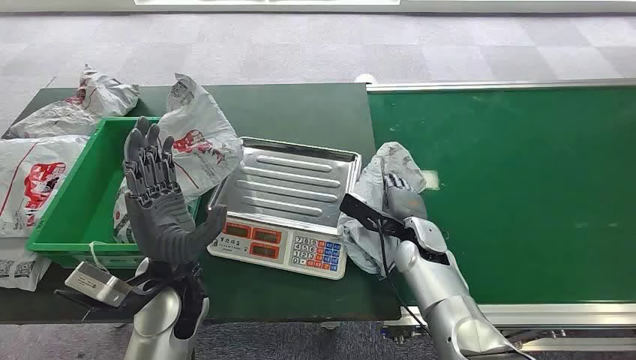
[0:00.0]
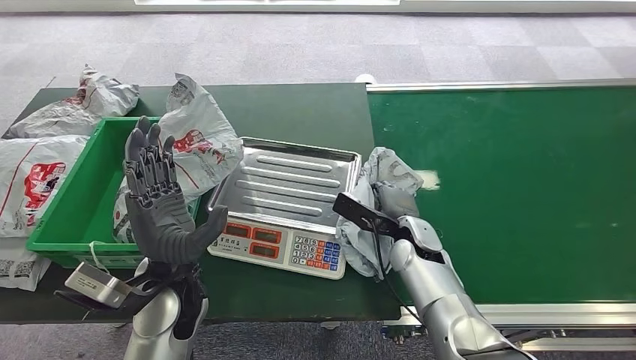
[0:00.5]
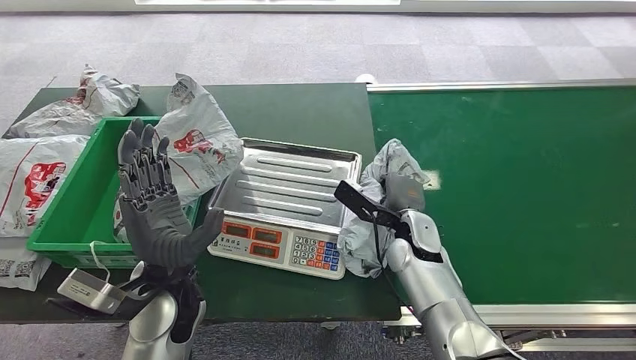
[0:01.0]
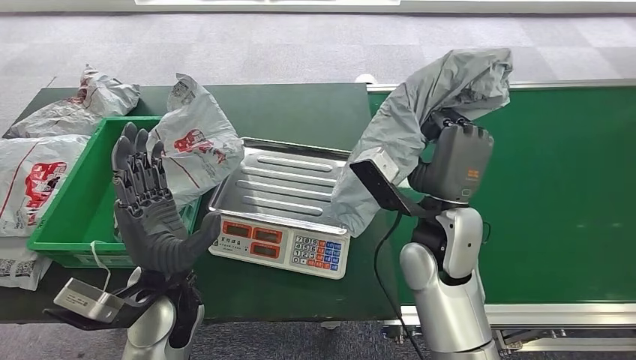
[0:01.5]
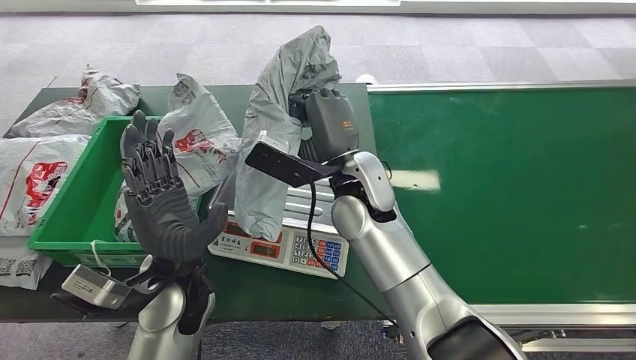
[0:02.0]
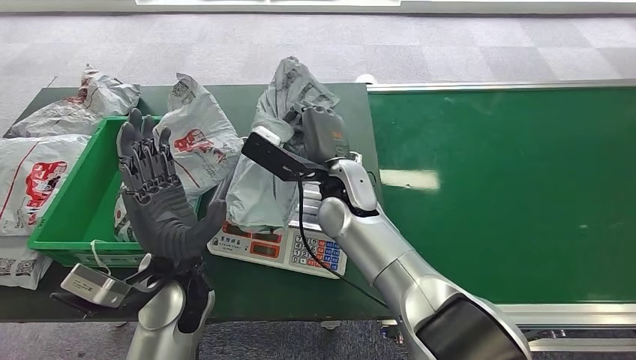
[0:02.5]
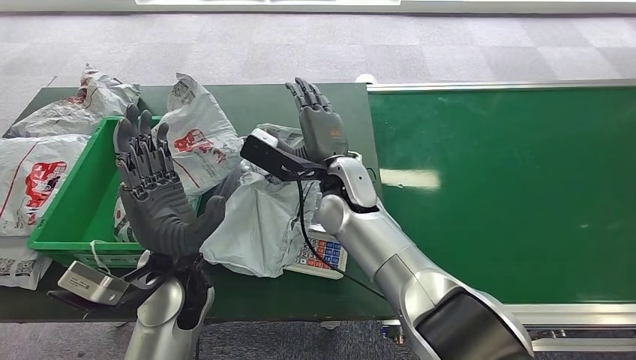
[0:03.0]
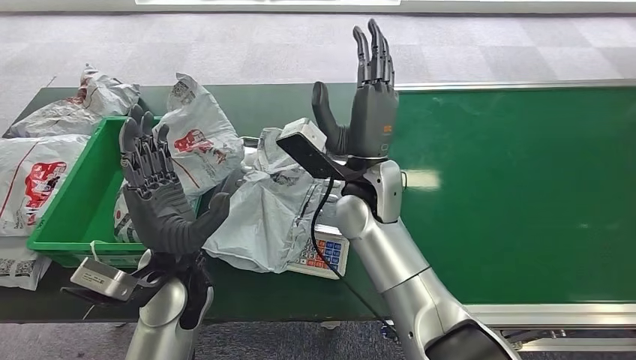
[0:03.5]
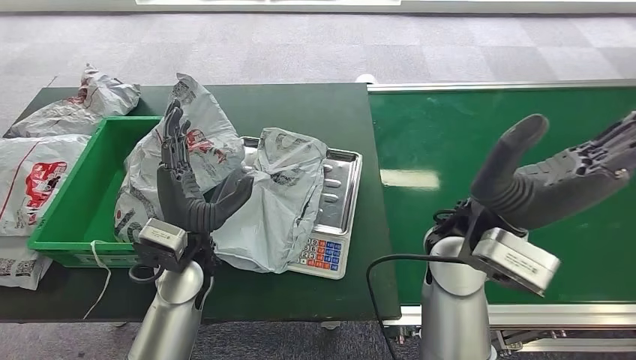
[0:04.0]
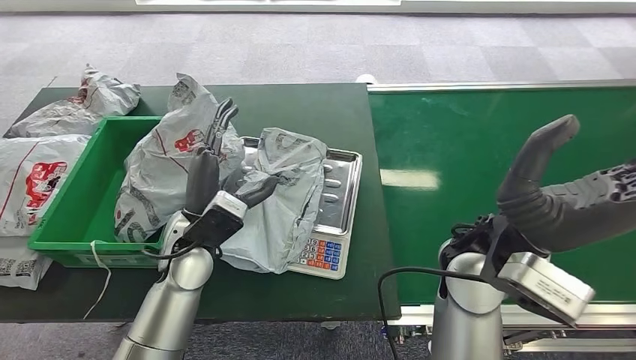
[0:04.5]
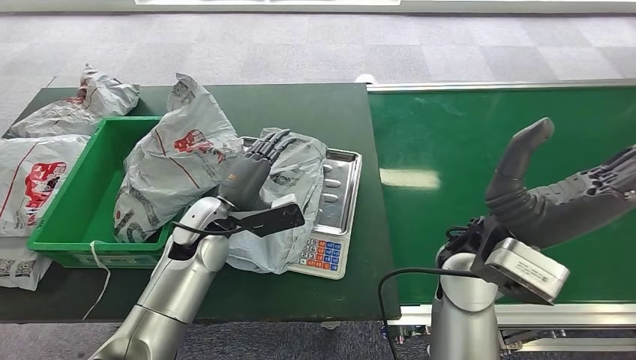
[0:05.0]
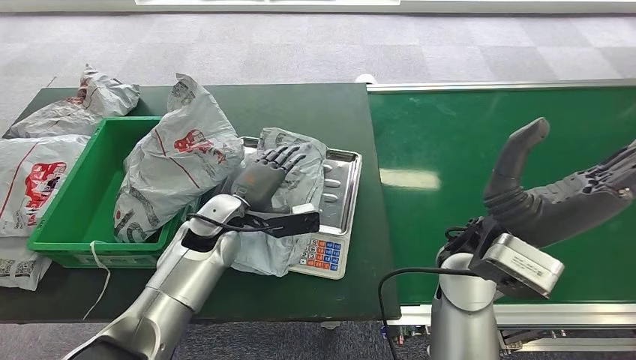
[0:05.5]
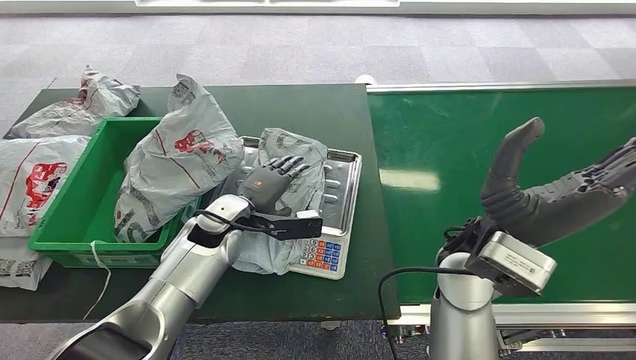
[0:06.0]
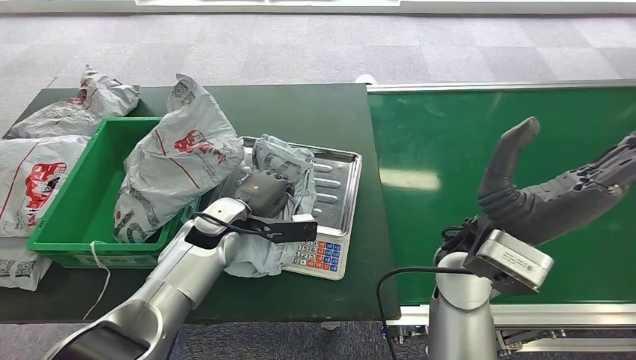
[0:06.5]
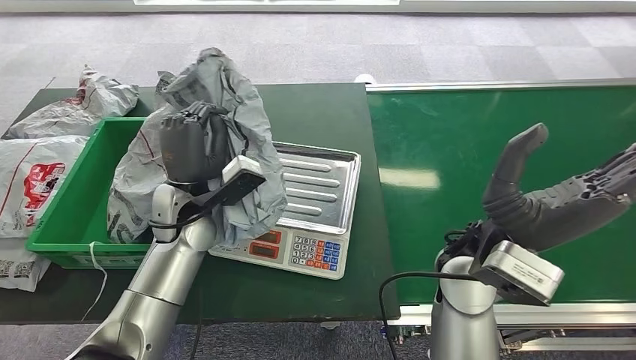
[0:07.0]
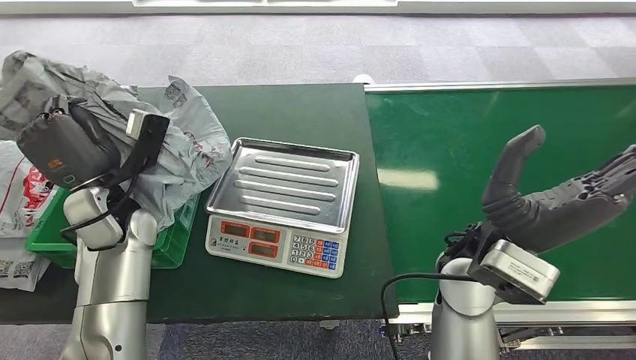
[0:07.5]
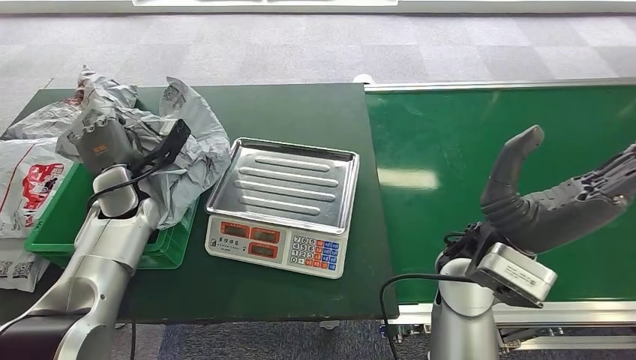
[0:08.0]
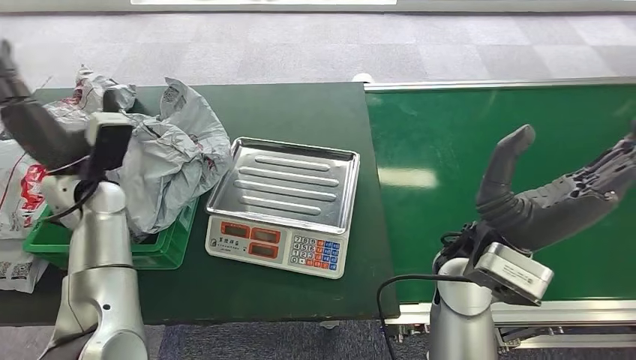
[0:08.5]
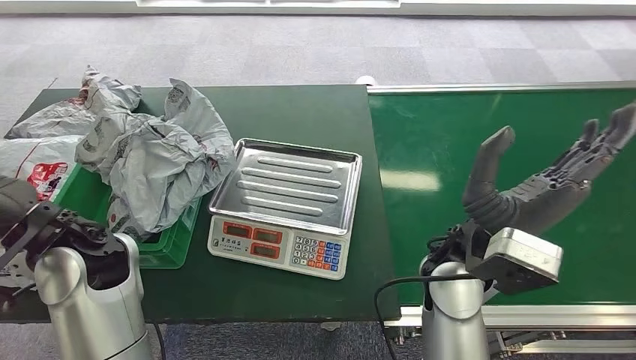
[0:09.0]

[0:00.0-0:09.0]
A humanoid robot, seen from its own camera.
Step, 0:00.0 to 0:01.0: Pick up the package from the conveyor belt.
Step, 0:01.5 to 0:04.0: Place the package onto the inbound machine.
Step, 0:04.5 to 0:07.0: Pick up the package from the inbound machine.
Step, 0:07.5 to 0:09.0: Place the package into the parcel locker.

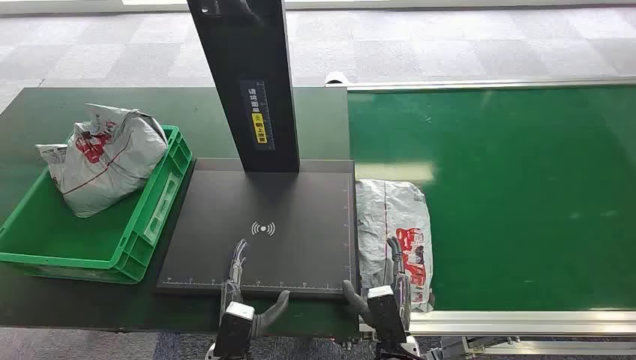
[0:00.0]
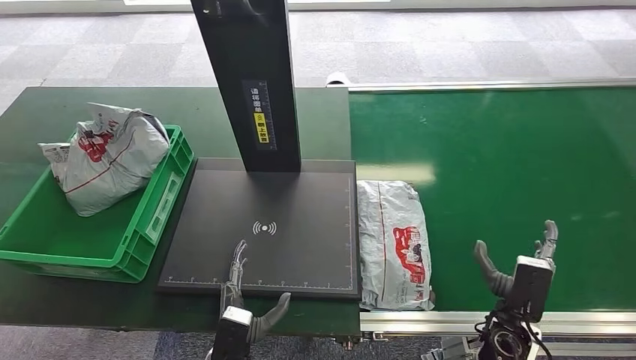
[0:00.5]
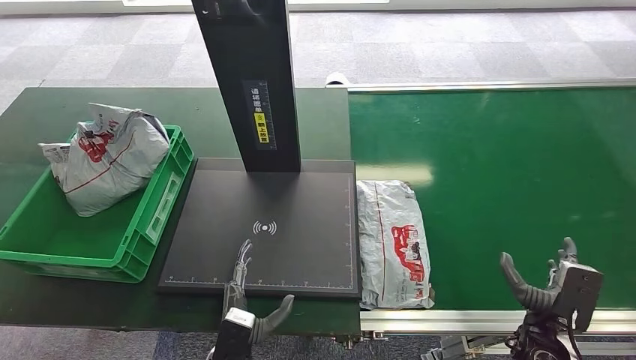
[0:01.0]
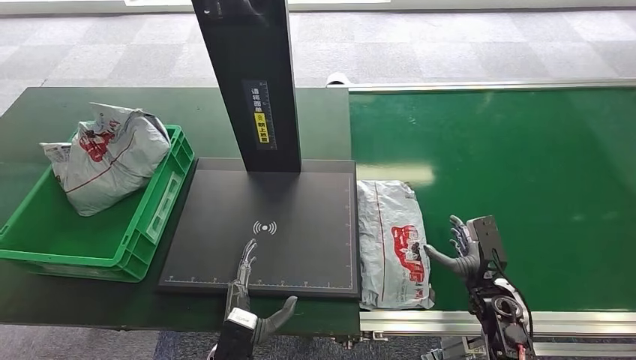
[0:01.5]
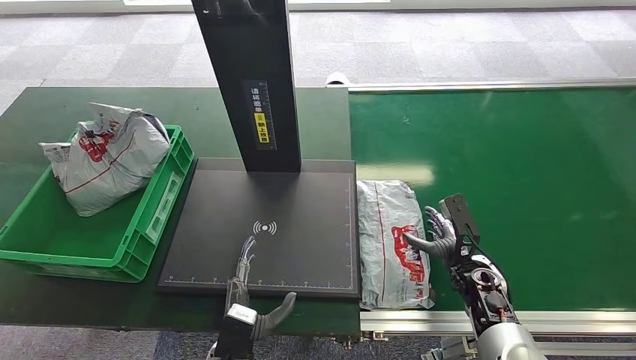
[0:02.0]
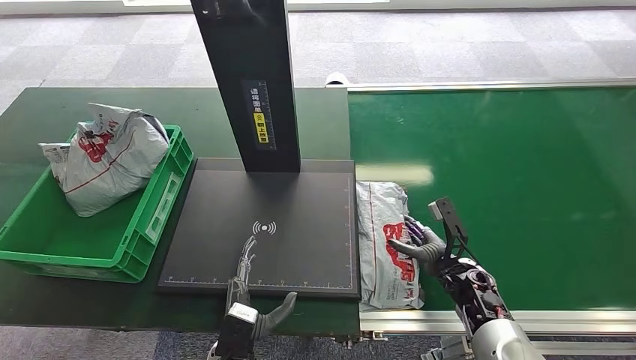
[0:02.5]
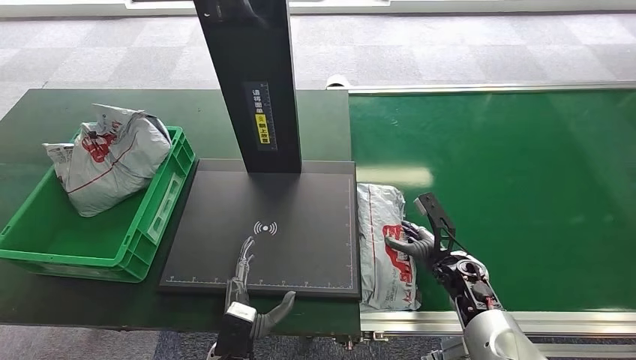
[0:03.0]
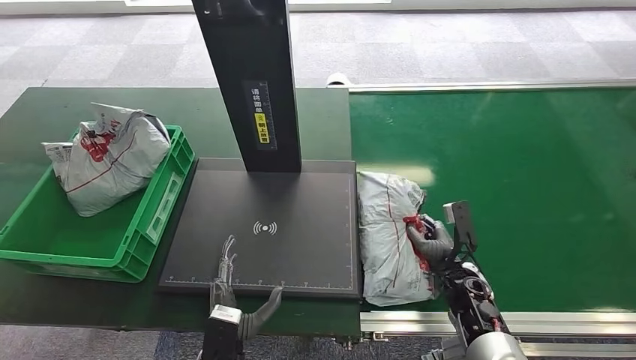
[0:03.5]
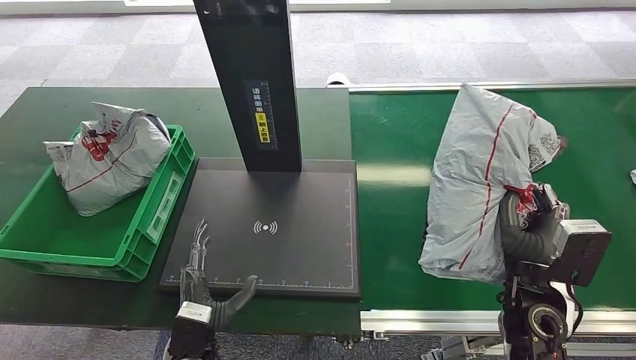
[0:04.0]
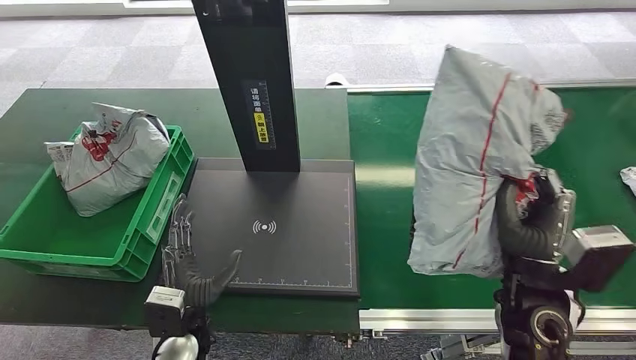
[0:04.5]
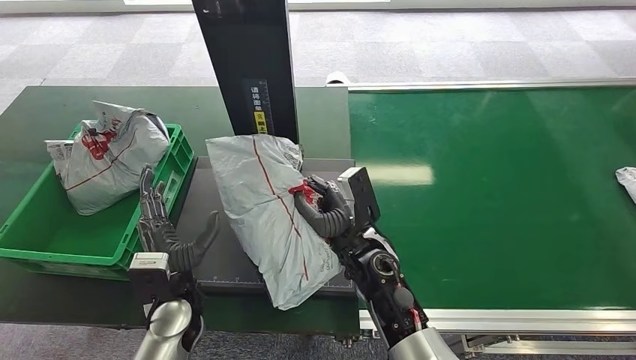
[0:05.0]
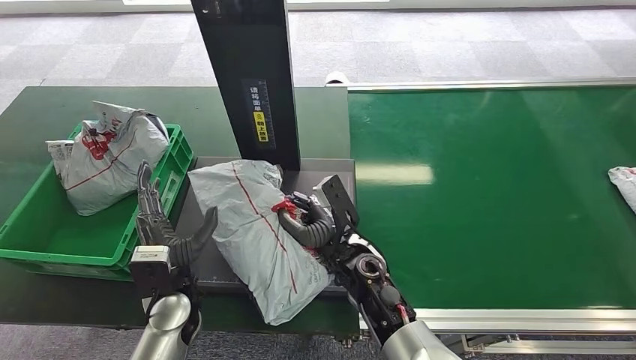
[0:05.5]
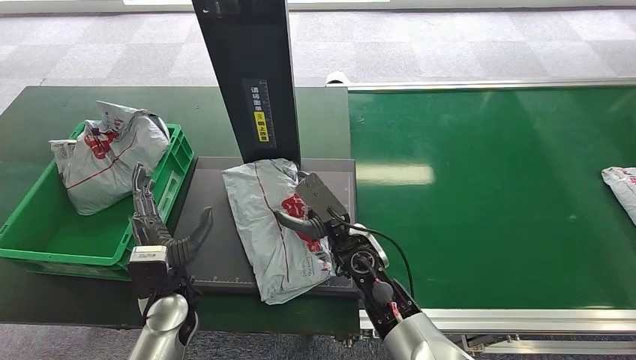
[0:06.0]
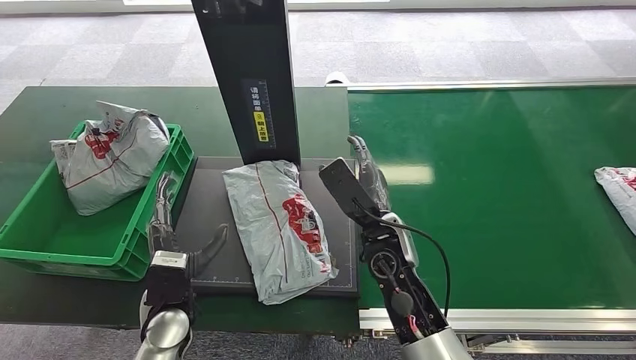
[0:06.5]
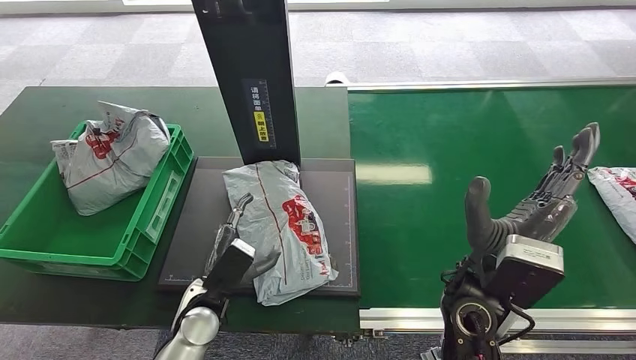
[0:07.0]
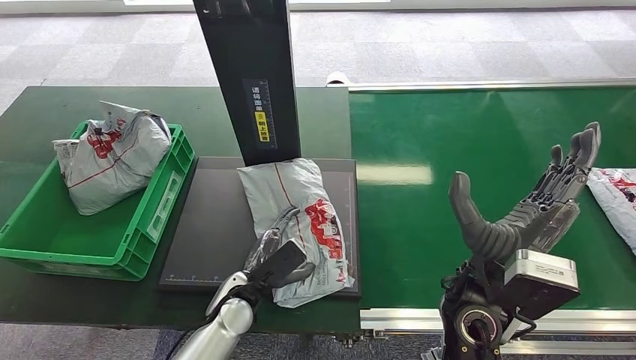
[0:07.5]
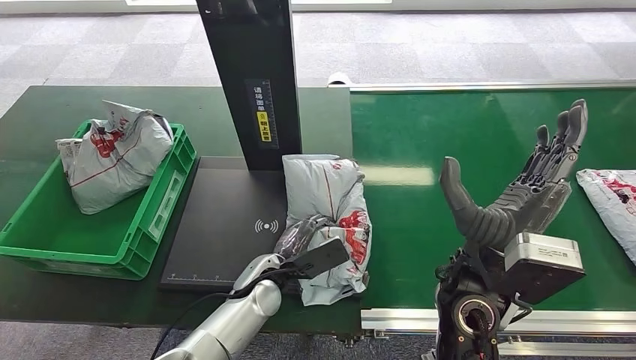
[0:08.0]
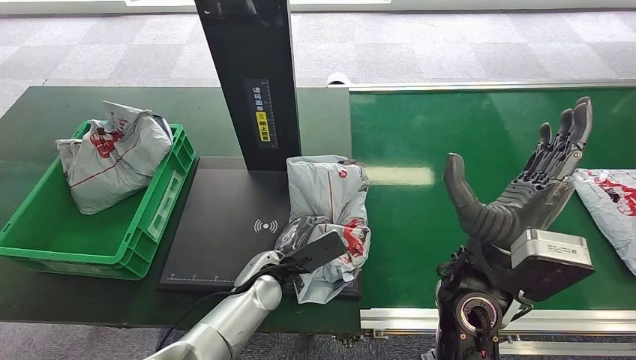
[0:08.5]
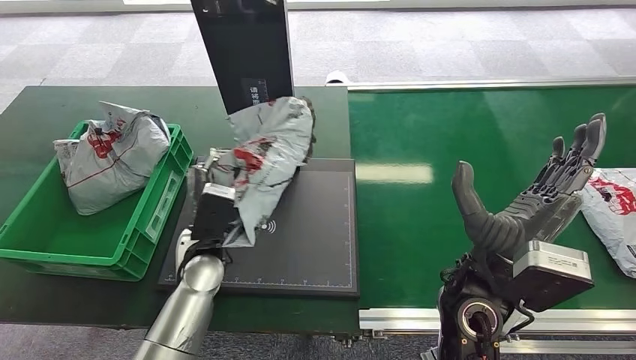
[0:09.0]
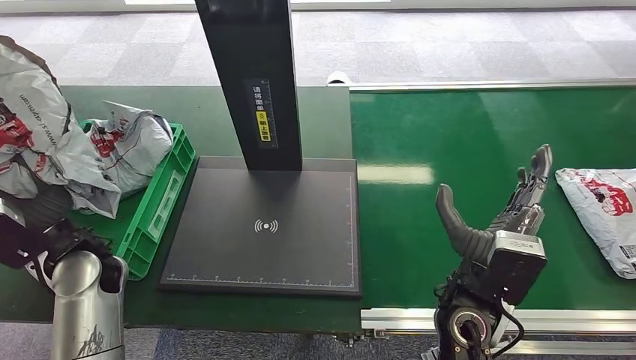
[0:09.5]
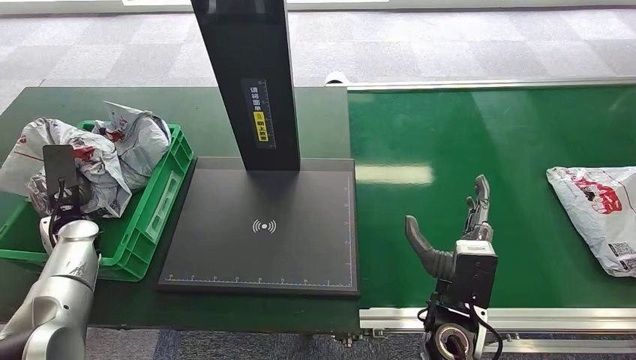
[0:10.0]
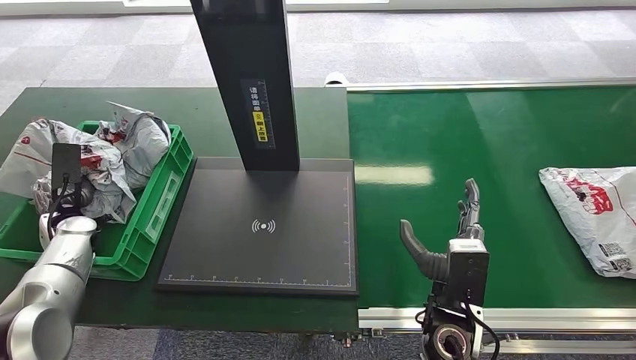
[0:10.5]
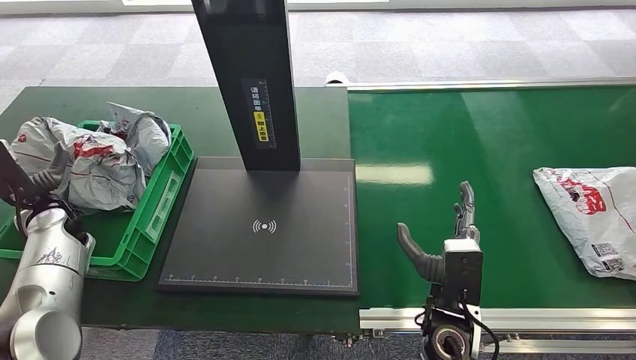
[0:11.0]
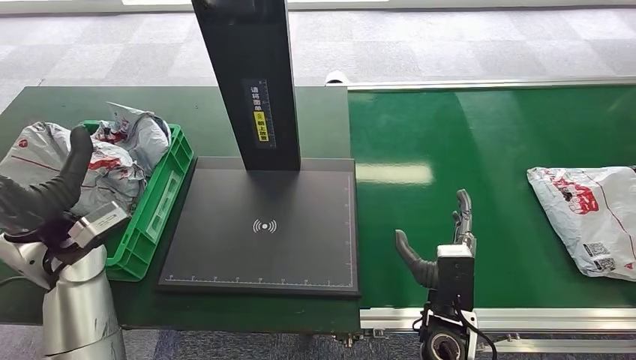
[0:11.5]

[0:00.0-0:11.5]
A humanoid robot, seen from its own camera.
Step, 0:00.0 to 0:03.5: Pick up the package from the conveyor belt.
Step, 0:04.0 to 0:06.0: Place the package onto the inbound machine.
Step, 0:06.5 to 0:08.5: Pick up the package from the inbound machine.
Step, 0:09.5 to 0:11.5: Place the package into the parcel locker.
0:06.0 to 0:07.5: The left hand moves to the right, about 10 cm. Meanwhile the right hand shifts about 15 cm to the right, upward and backward.
